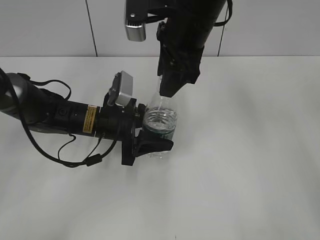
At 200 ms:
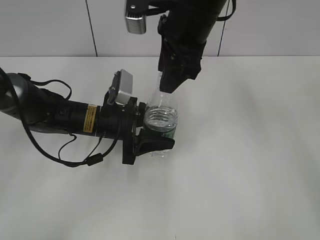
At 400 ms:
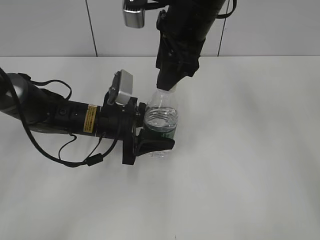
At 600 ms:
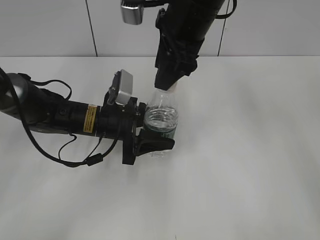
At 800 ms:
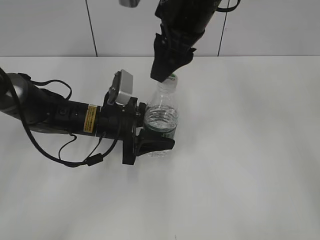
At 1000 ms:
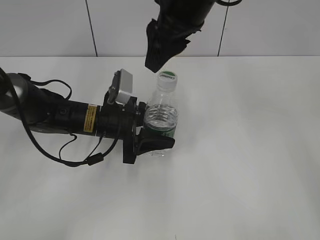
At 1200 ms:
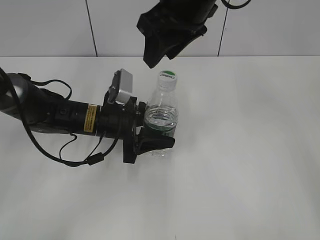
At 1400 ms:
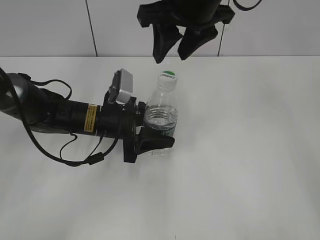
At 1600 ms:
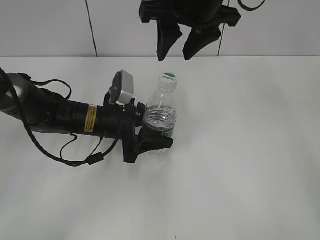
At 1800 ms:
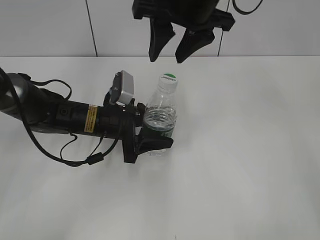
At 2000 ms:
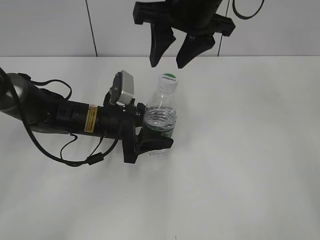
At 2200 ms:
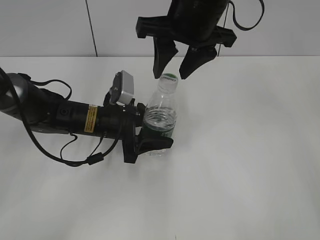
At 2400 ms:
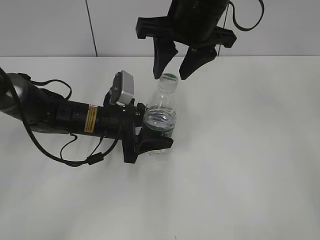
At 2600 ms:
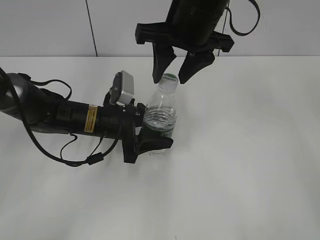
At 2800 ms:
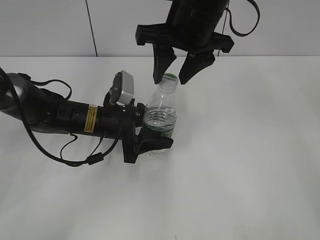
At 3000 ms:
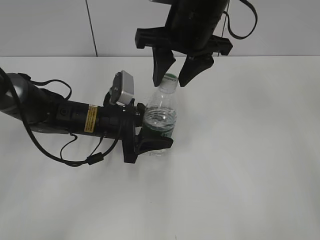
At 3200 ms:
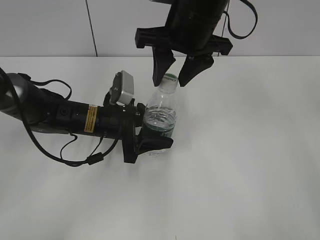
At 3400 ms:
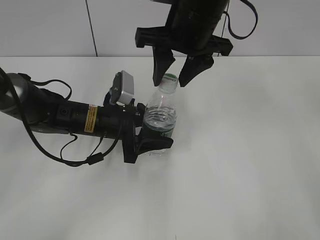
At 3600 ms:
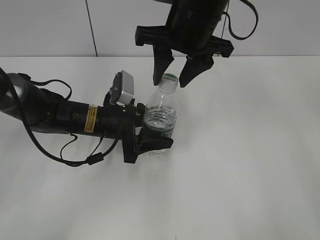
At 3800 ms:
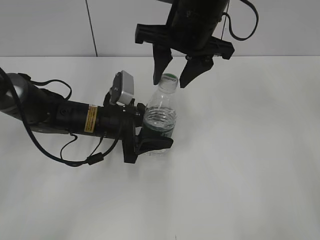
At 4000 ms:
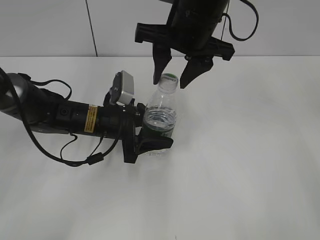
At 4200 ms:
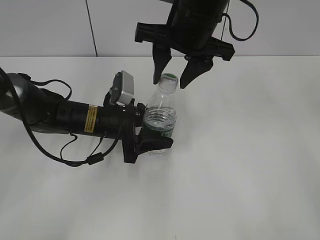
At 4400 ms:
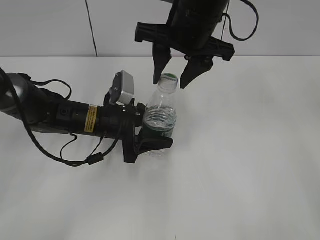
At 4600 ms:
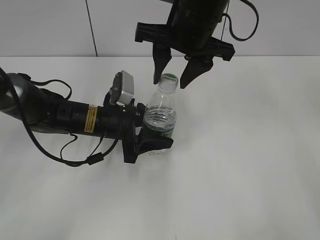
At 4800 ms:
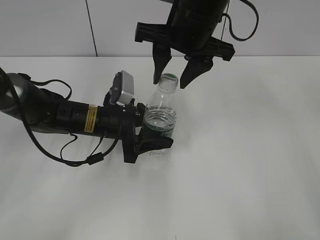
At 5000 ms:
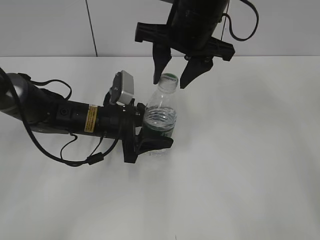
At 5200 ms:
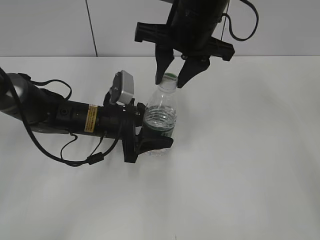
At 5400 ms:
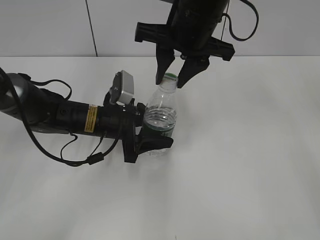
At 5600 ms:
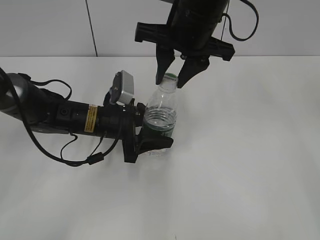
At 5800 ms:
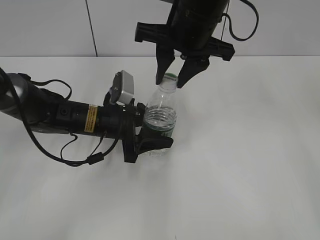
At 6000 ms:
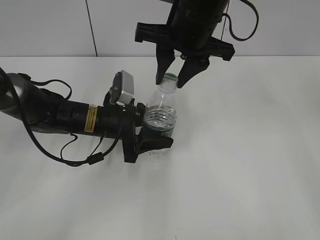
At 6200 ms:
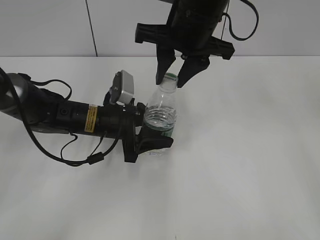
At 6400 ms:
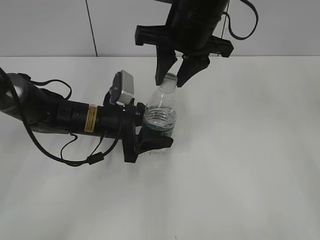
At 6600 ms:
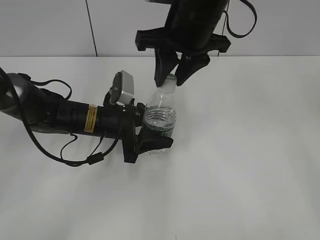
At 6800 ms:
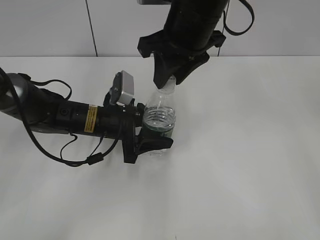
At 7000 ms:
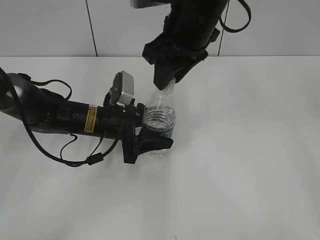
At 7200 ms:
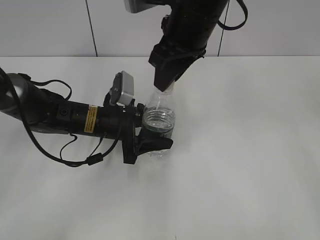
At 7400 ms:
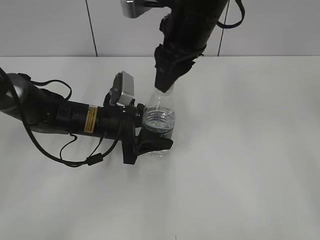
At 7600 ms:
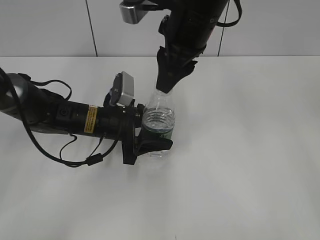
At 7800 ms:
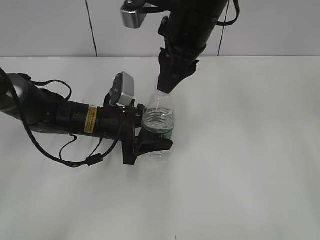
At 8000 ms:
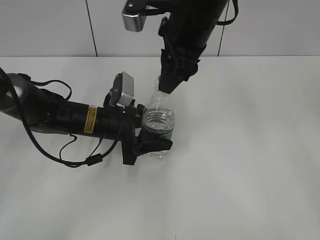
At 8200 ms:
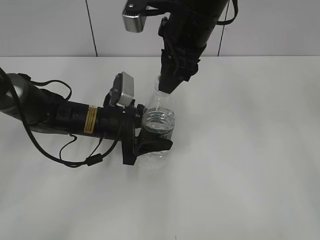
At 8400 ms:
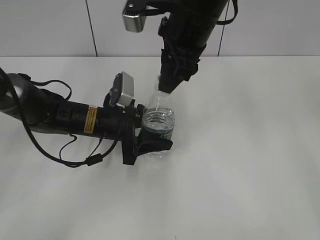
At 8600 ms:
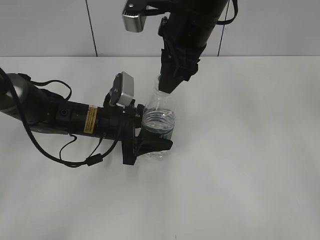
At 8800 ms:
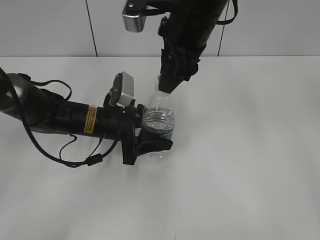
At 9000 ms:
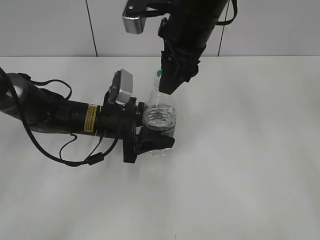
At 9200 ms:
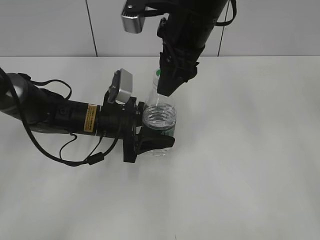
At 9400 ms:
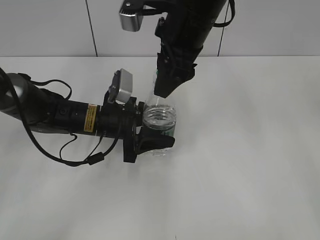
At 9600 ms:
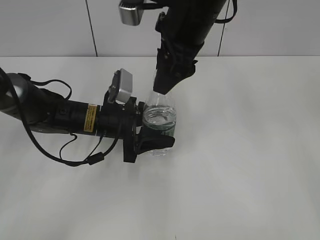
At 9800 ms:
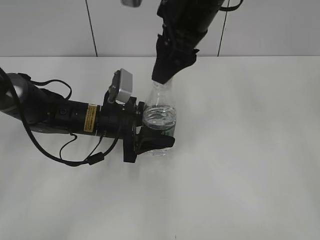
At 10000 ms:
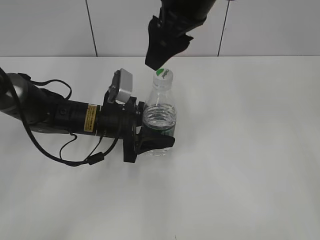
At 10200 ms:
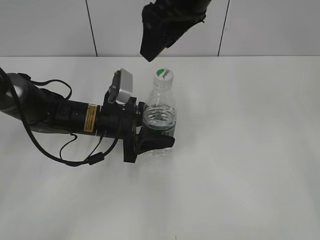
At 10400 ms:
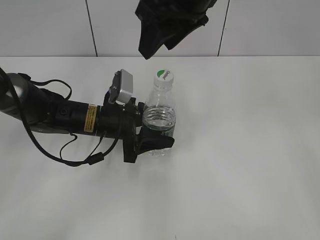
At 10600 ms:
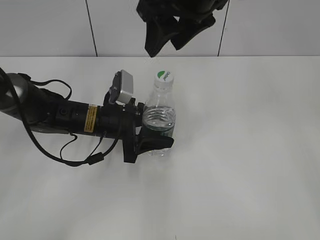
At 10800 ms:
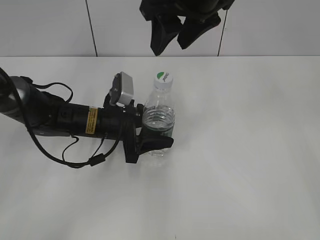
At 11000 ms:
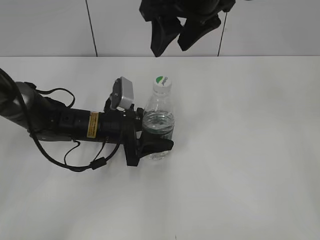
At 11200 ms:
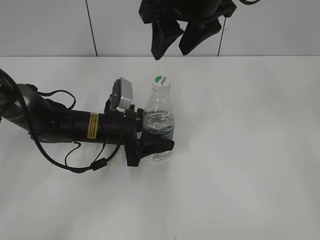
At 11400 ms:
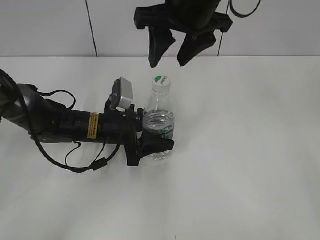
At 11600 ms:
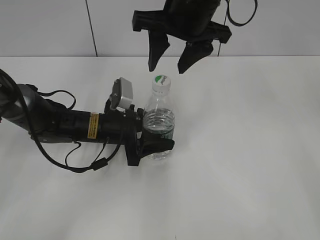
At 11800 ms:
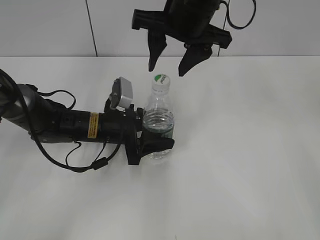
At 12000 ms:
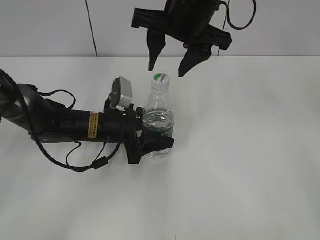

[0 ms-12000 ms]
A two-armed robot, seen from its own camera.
1600 ms to 4400 ms: The grippers make only small movements.
4400 ms to 6000 ms: The right gripper closes.
7600 ms to 9000 ms: The grippers make only small movements.
9000 ms to 10400 ms: The right gripper heads upward, covering approximately 5 cm, and opens its fingers.

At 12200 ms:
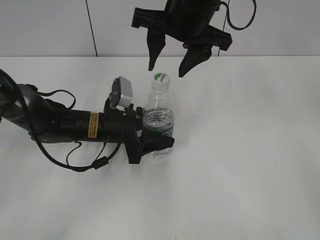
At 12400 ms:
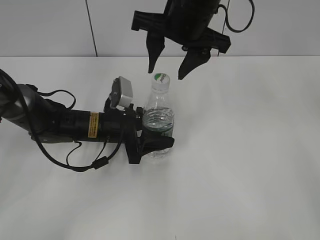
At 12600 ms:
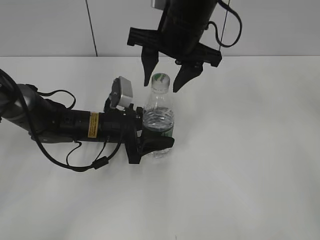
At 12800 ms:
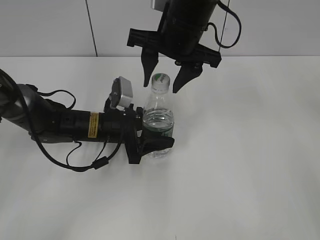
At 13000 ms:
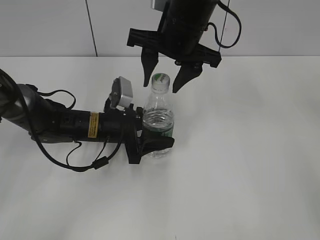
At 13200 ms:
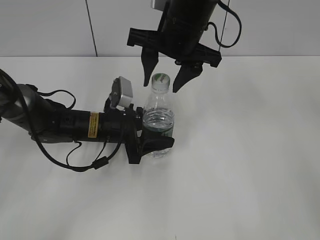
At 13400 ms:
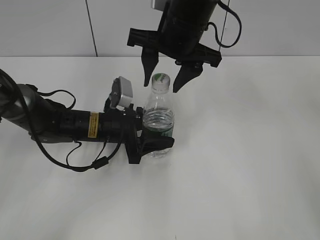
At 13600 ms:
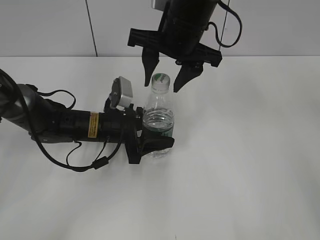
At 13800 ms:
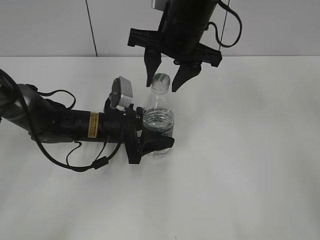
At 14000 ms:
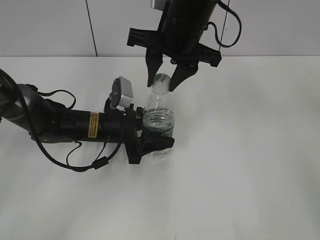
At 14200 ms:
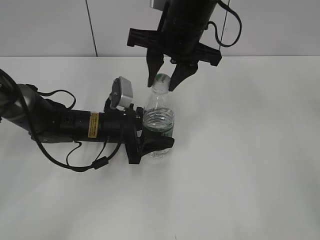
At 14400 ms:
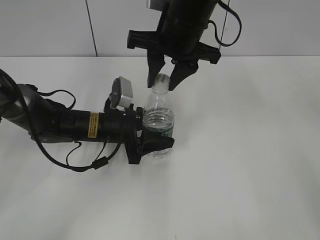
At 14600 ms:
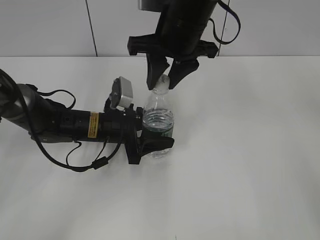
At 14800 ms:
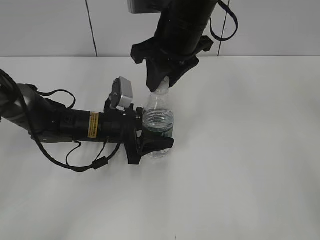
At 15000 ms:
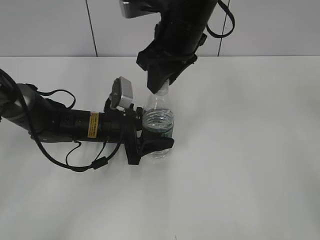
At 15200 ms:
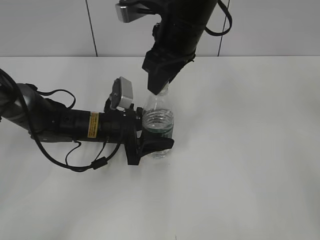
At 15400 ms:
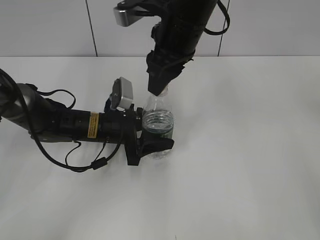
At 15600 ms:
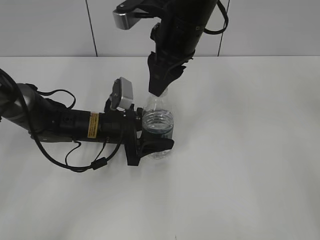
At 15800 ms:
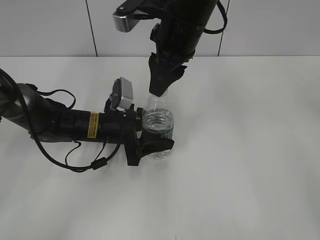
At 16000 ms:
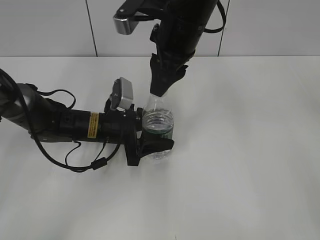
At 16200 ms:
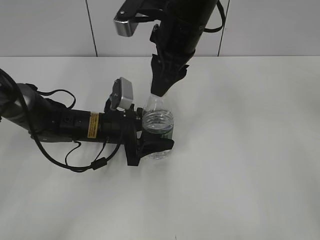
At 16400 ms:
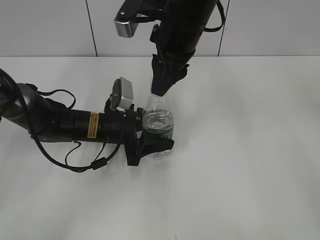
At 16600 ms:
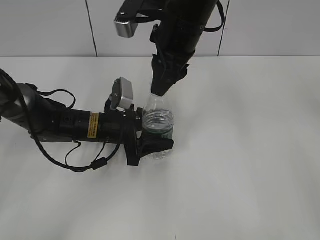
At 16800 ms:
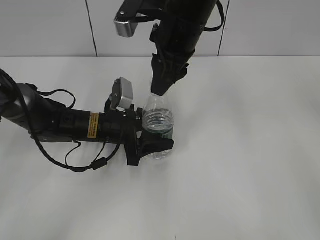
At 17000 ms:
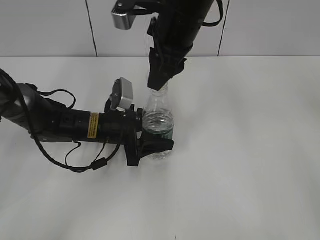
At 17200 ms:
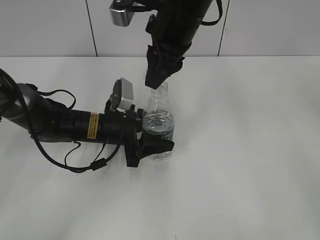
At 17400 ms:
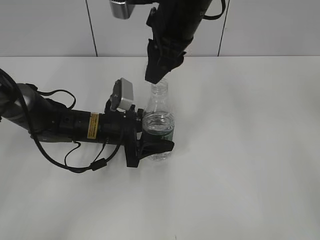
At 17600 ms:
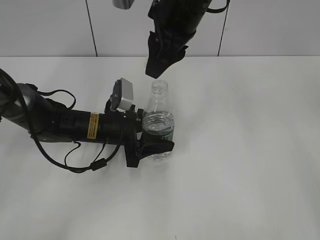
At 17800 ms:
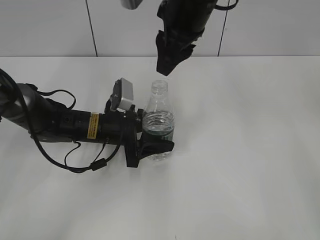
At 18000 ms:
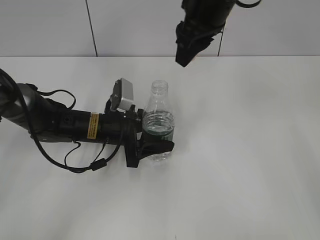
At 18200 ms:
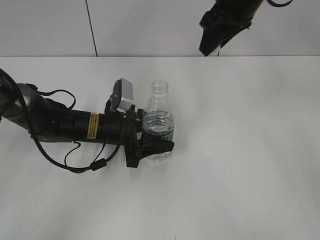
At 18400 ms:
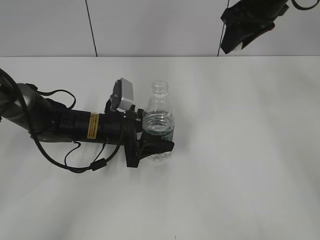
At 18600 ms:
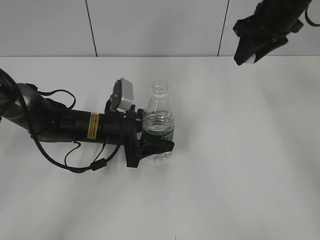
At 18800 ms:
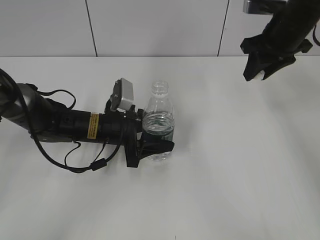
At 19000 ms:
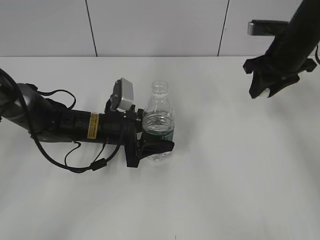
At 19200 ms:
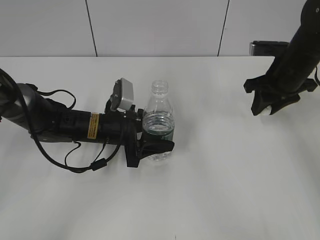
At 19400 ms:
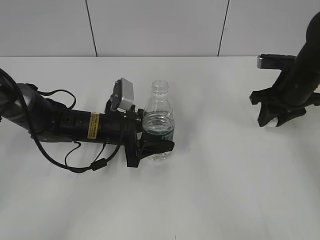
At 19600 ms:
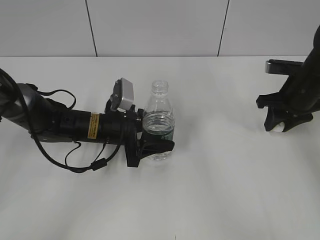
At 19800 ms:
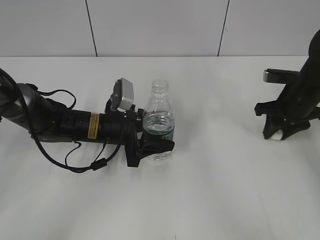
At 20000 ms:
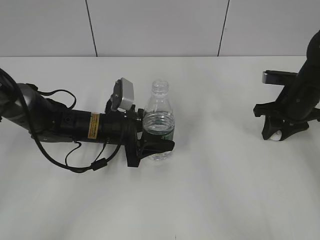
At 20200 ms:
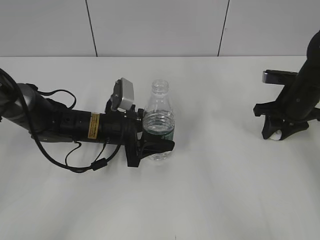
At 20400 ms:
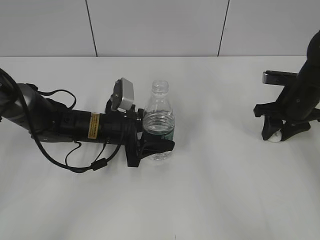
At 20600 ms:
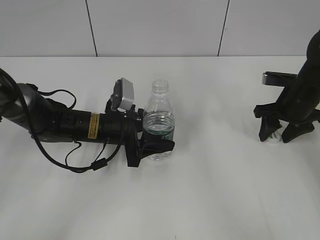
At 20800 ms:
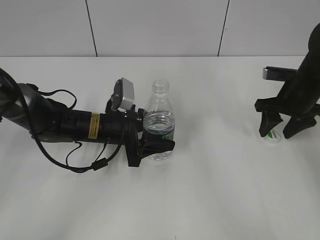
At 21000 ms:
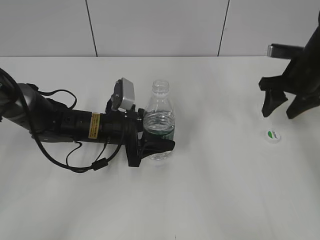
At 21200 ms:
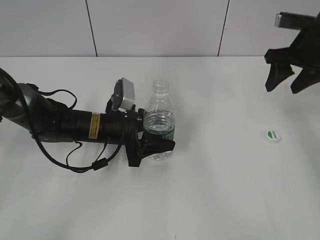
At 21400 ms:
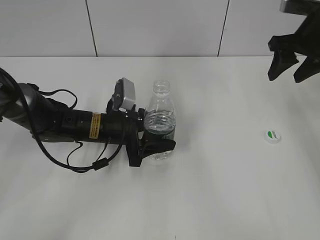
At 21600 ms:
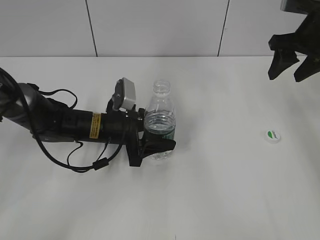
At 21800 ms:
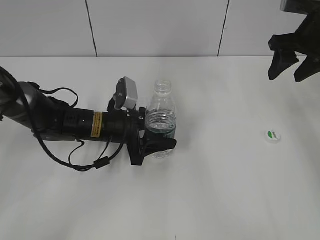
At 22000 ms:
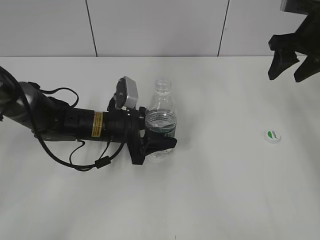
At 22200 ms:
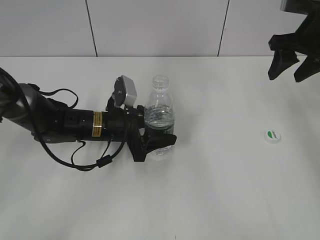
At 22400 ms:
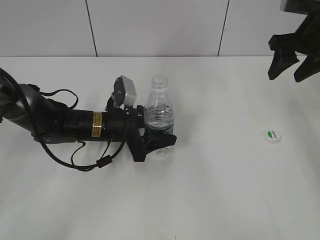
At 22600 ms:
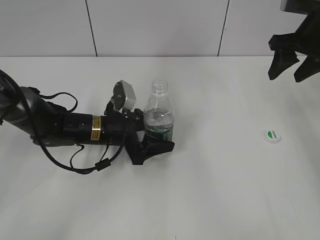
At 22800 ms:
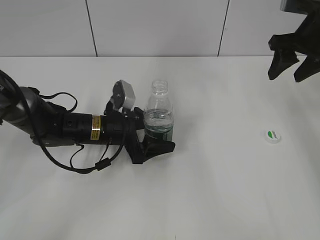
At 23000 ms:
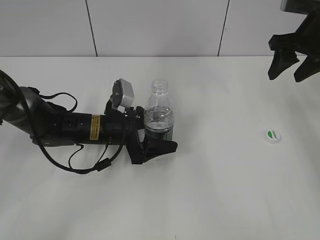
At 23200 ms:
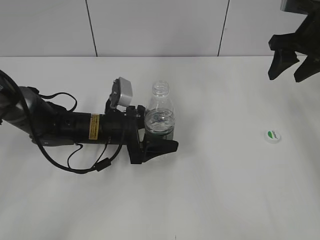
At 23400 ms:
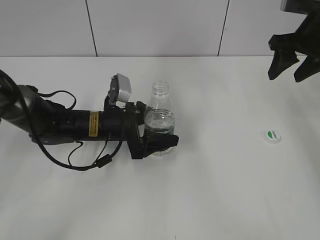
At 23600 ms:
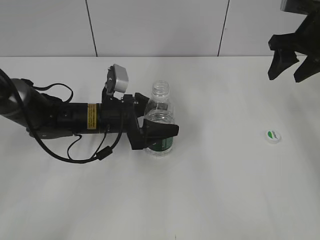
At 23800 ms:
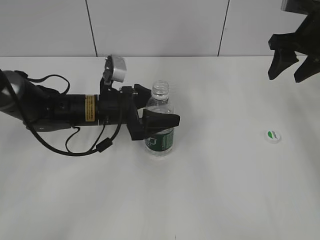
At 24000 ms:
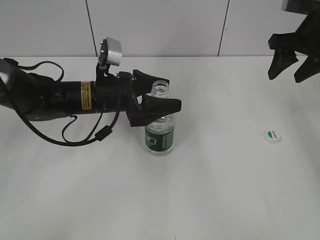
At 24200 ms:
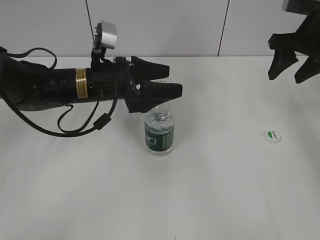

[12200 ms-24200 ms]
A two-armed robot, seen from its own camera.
Step, 12200 ms to 17800 ms: Unscrew the bottle cap with the right gripper while holding the bottle with the left gripper.
Step, 18000 ms to 20800 ms: Place the bottle cap on the table with the right gripper.
Step, 21000 ms to 23400 ms: Place the bottle on the table with the left gripper.
12200 ms to 13800 ms: There are only small adjustments of the grippers.
13800 ms to 15200 ms: The right gripper closes up.
16600 ms to 18200 ms: The right gripper travels to the right by some 10 cm.
18200 ms to 19800 ms: The right gripper travels downward and to the right by about 25 cm.
19800 ms to 21200 ms: The right gripper travels upward by approximately 10 cm, and opens up.
21200 ms to 22600 ms: The left gripper opens.
22600 ms to 24200 ms: The left gripper goes roughly 10 cm upward.
